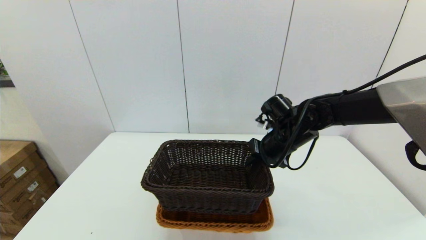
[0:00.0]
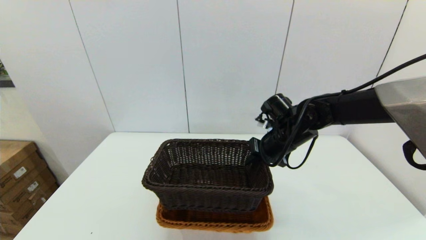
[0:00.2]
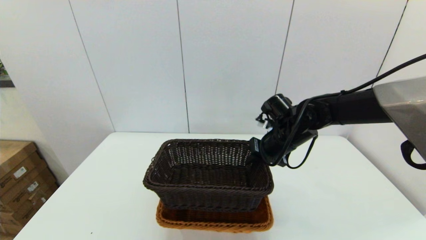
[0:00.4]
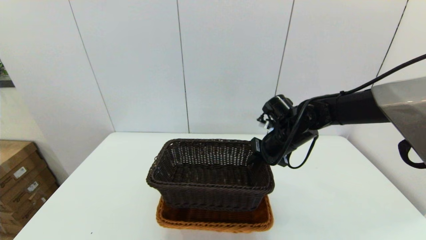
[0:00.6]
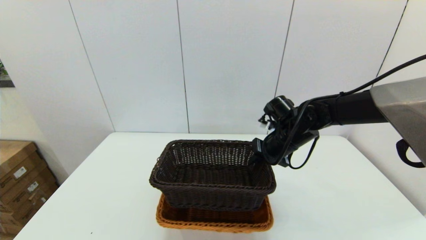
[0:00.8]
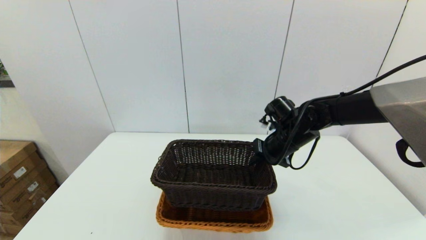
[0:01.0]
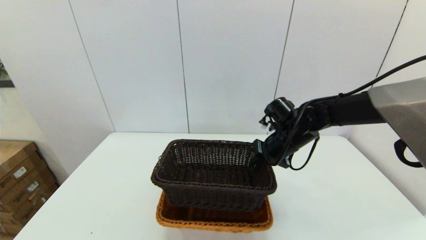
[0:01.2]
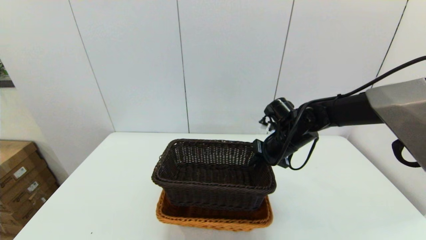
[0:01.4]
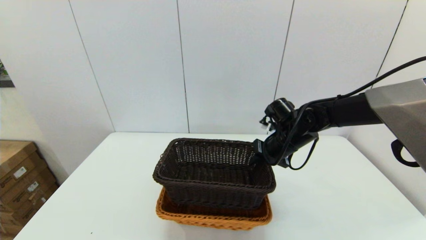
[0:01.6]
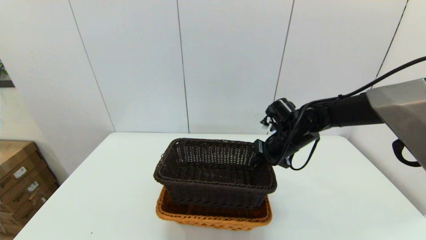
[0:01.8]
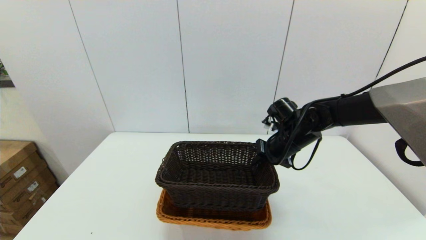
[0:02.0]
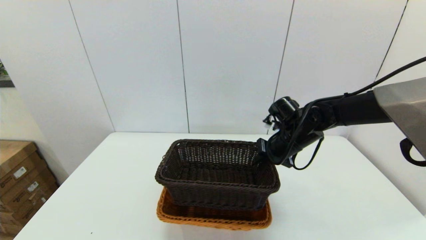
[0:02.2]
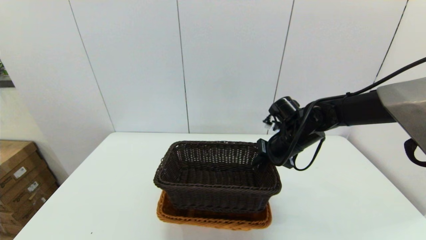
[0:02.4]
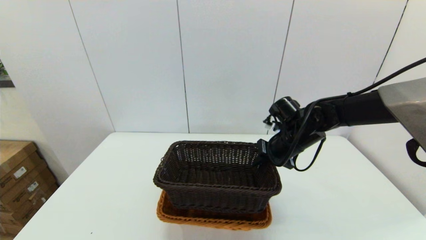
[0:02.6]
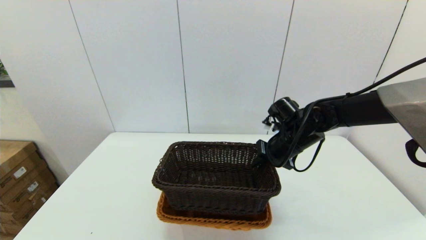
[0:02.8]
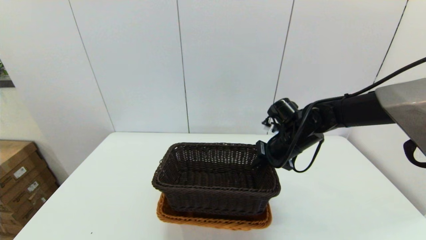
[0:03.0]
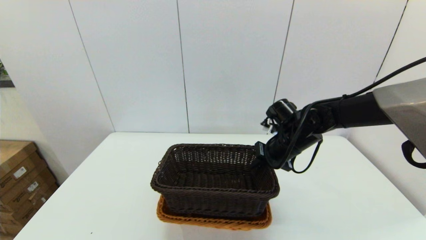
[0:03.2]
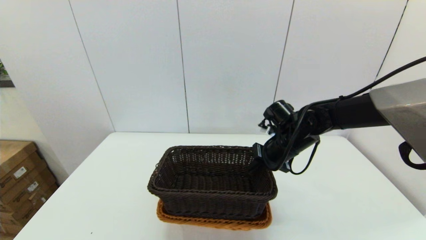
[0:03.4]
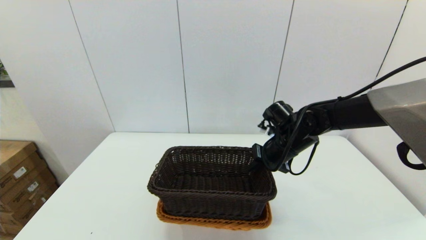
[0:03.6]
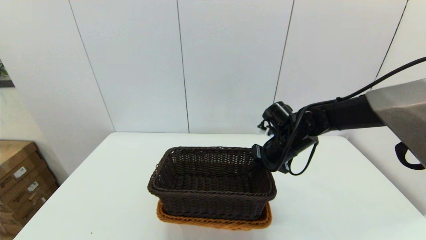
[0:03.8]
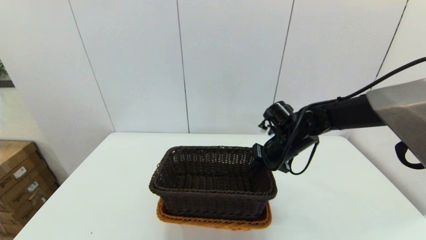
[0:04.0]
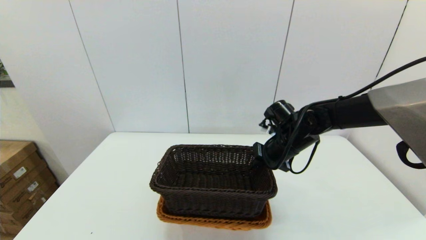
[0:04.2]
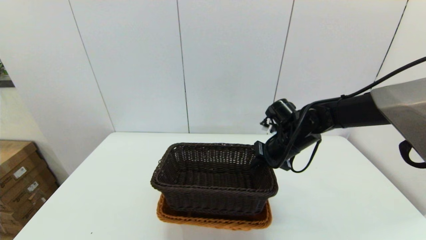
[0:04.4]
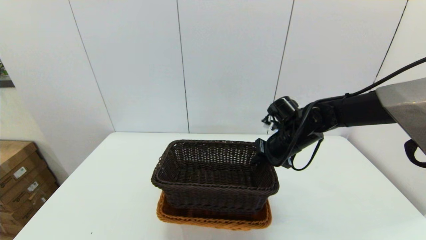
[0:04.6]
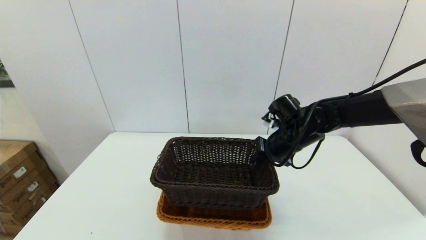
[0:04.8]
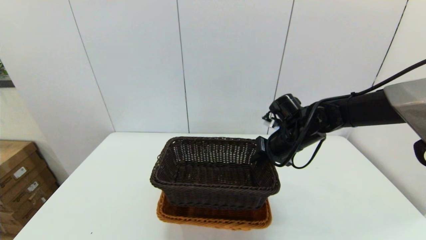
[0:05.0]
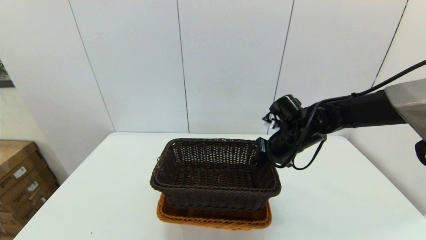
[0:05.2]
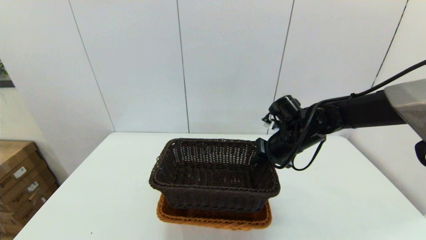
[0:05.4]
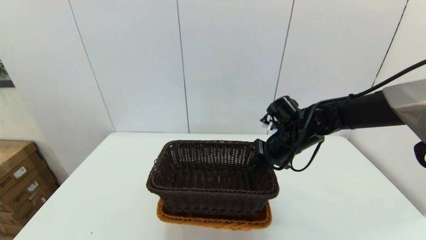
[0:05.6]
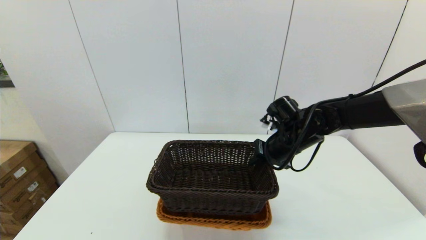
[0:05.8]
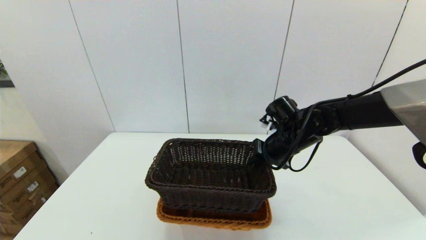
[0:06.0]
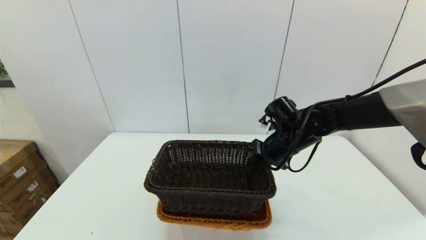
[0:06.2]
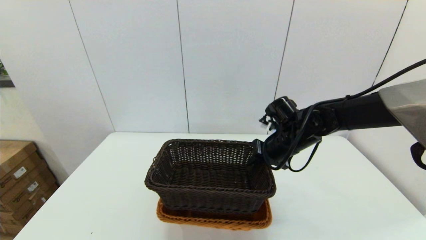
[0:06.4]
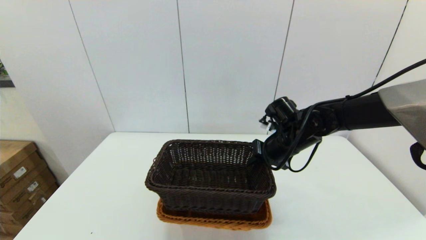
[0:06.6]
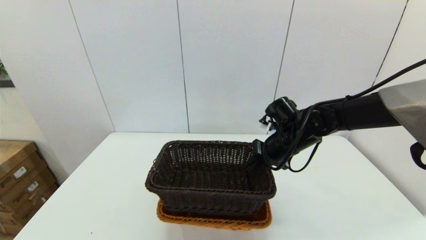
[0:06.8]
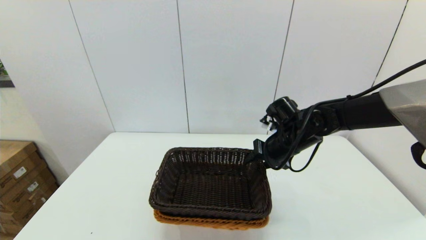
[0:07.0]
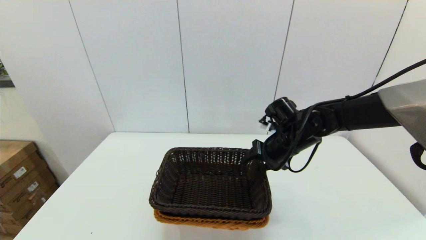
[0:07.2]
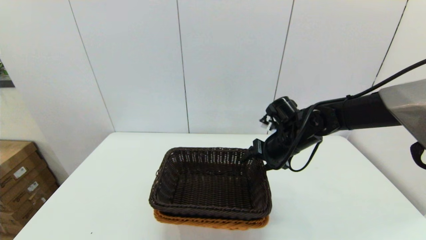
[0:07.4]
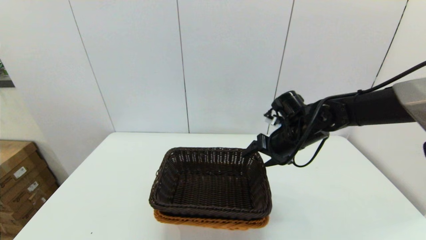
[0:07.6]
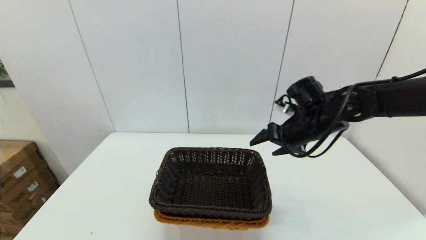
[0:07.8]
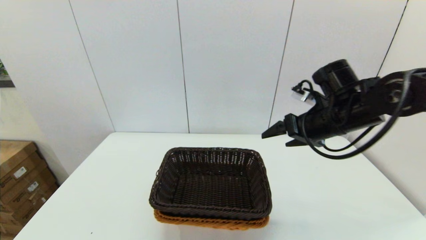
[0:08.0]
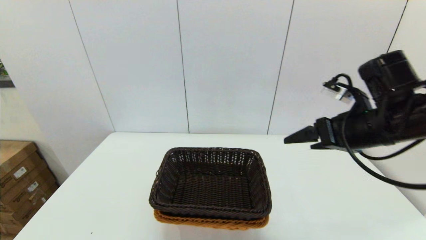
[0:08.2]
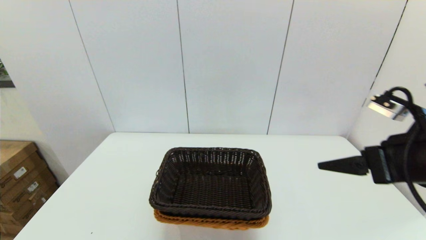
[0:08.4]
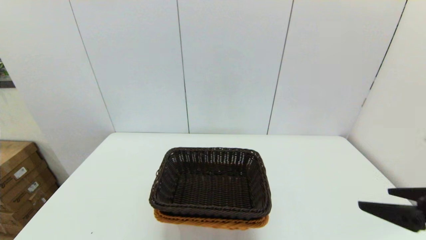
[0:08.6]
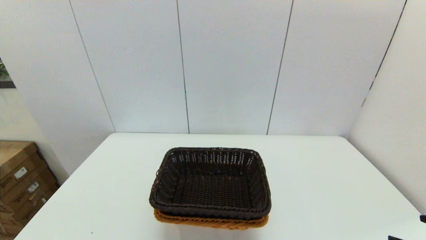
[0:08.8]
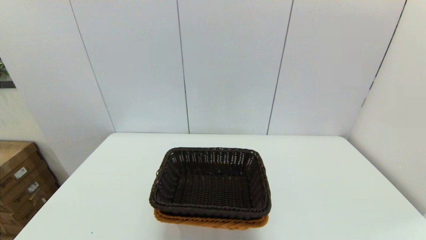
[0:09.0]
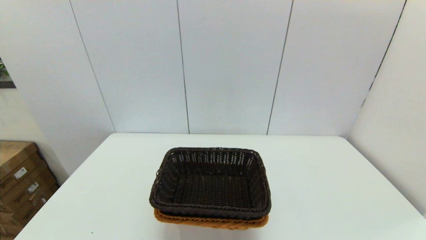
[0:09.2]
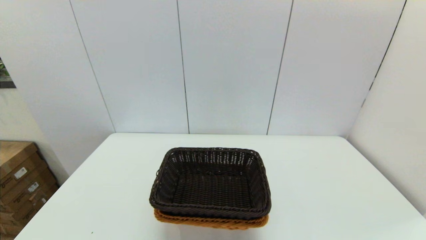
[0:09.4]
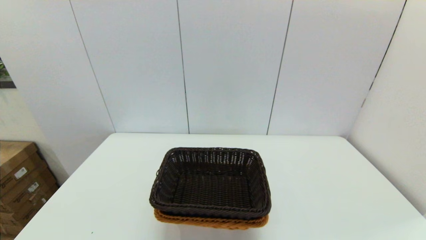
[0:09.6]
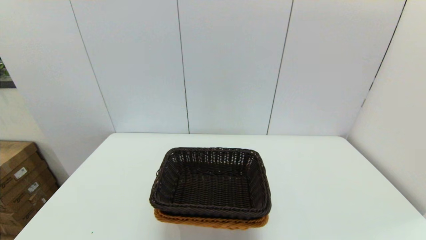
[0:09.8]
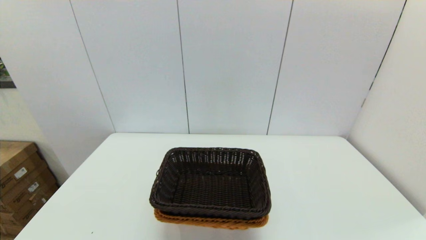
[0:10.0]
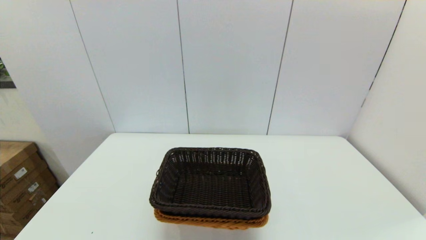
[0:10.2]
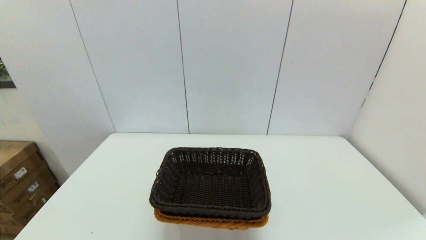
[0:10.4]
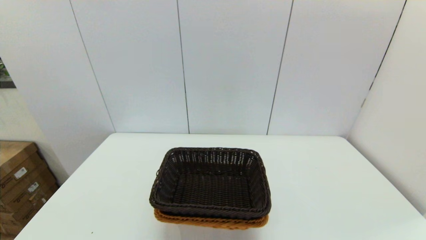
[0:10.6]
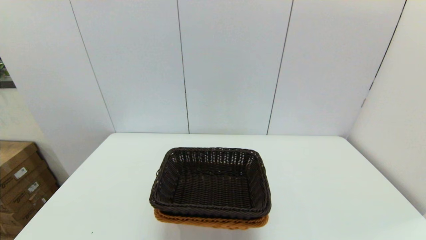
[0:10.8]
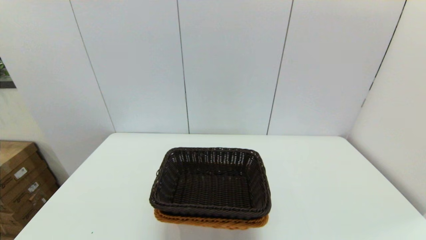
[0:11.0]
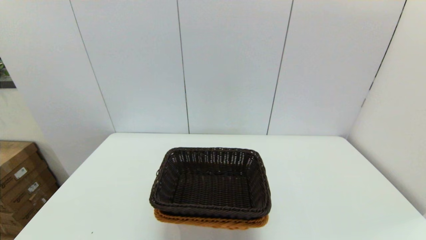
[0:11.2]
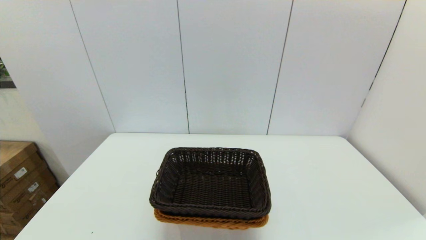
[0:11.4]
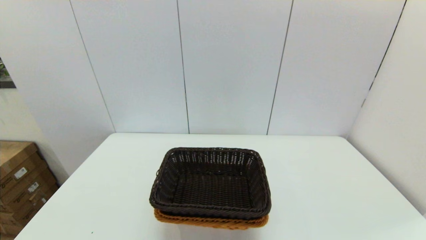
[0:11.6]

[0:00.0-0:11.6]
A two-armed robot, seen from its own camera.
Task of the whole recording: stack a basket on top of another basket.
Step, 0:00.0 to 0:07.8: Place the dark basket into the light color basket with the right gripper.
0:00.0 to 0:04.4: The grippers move only a little.
0:04.4 to 0:05.8: Both grippers stay put.
0:05.8 to 0:07.2: The right gripper opens.
0:07.2 to 0:08.8: The right gripper moves backward and to the right, about 35 cm, and opens.
